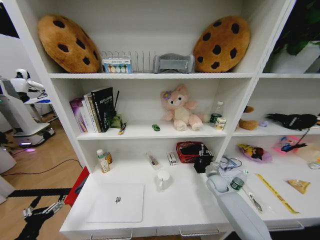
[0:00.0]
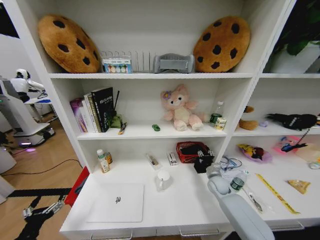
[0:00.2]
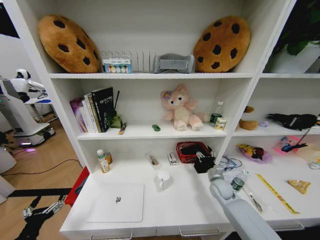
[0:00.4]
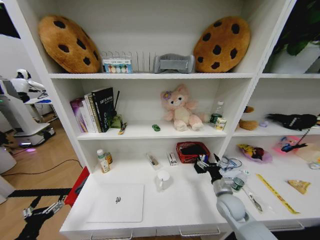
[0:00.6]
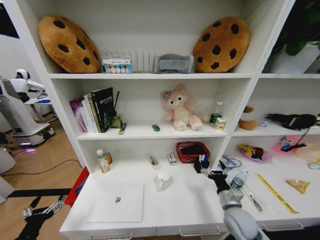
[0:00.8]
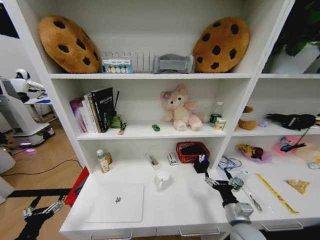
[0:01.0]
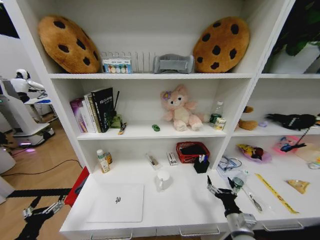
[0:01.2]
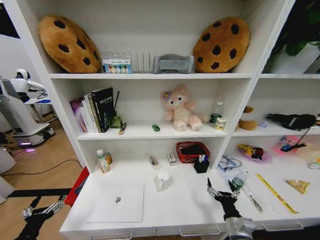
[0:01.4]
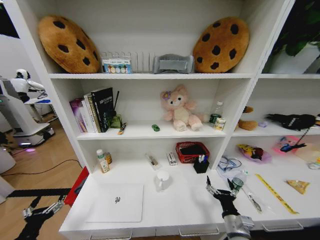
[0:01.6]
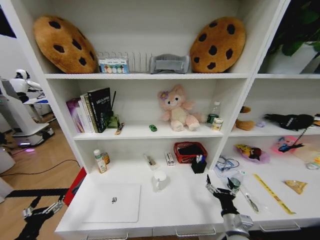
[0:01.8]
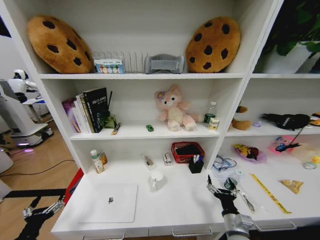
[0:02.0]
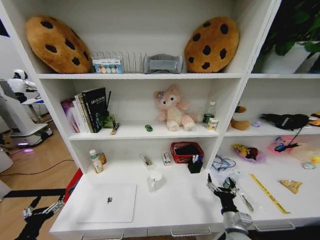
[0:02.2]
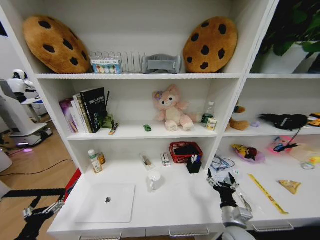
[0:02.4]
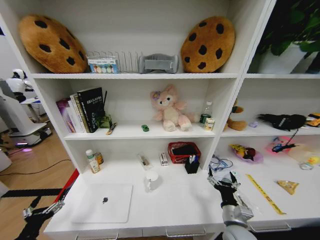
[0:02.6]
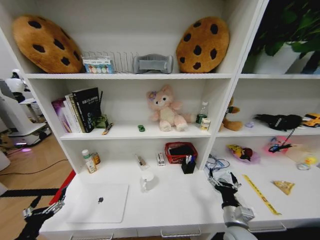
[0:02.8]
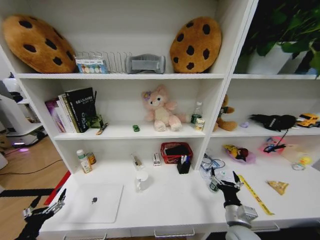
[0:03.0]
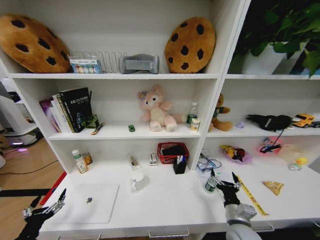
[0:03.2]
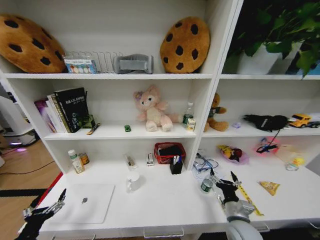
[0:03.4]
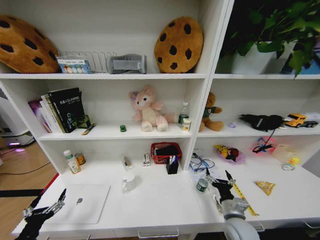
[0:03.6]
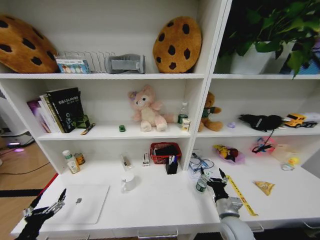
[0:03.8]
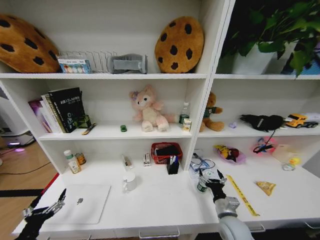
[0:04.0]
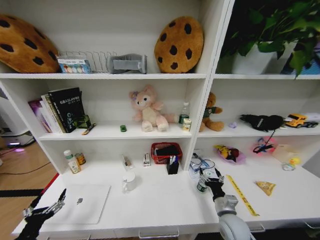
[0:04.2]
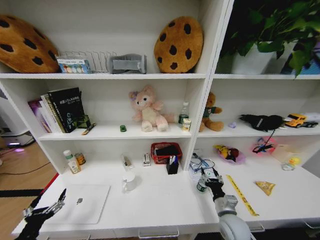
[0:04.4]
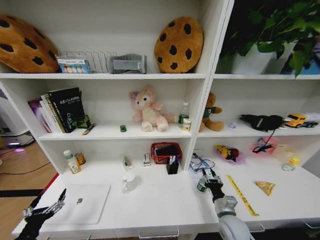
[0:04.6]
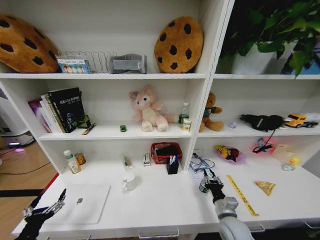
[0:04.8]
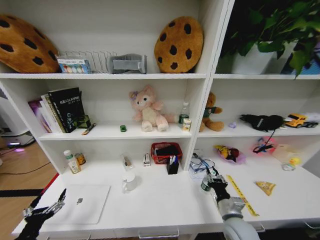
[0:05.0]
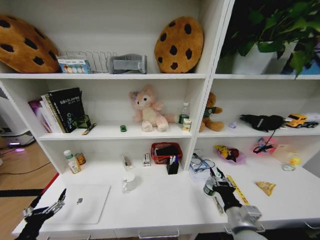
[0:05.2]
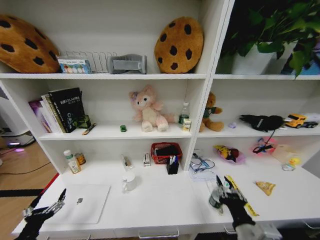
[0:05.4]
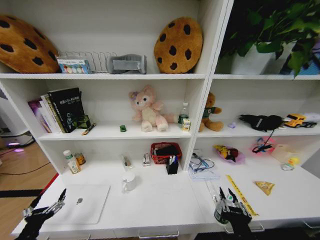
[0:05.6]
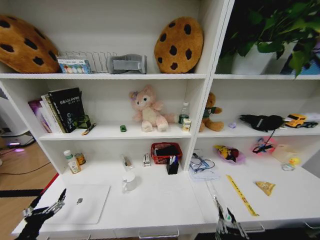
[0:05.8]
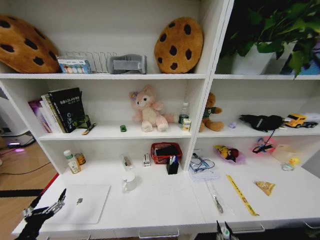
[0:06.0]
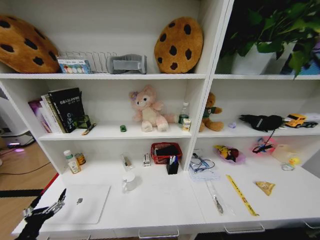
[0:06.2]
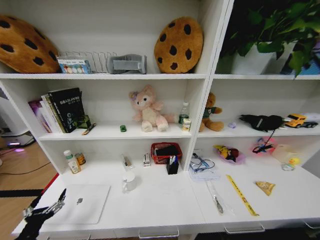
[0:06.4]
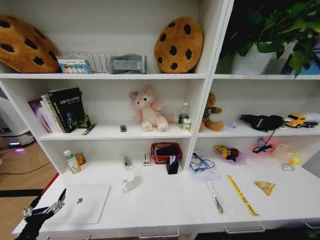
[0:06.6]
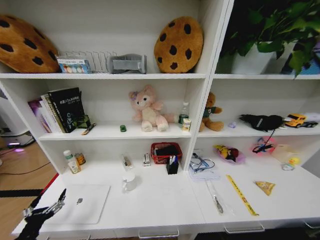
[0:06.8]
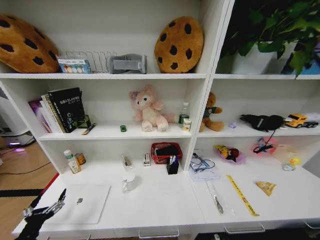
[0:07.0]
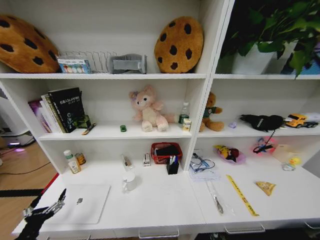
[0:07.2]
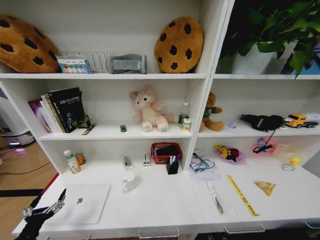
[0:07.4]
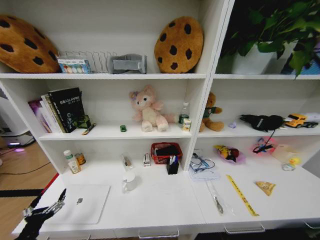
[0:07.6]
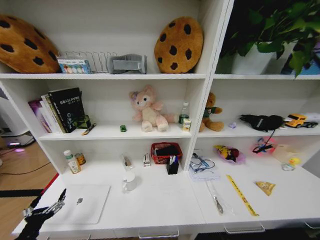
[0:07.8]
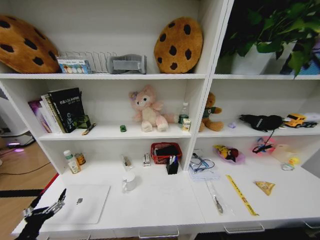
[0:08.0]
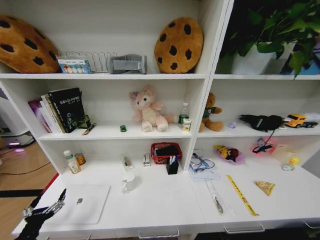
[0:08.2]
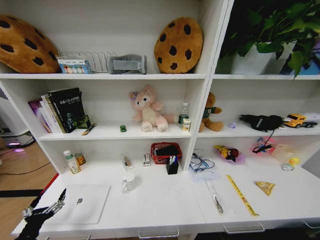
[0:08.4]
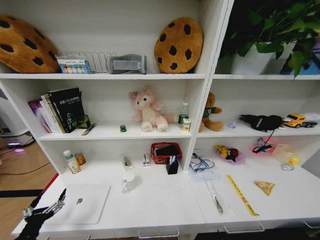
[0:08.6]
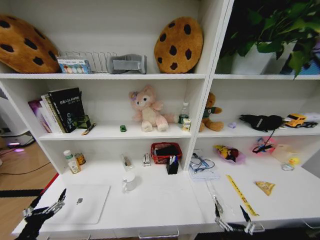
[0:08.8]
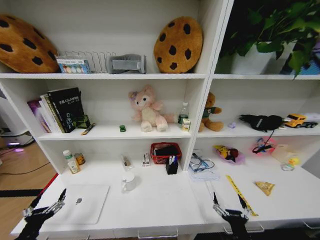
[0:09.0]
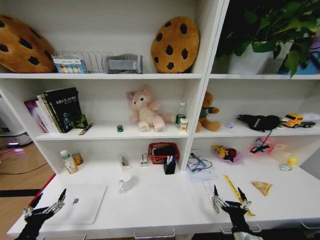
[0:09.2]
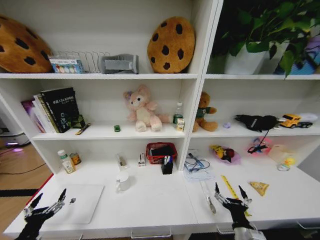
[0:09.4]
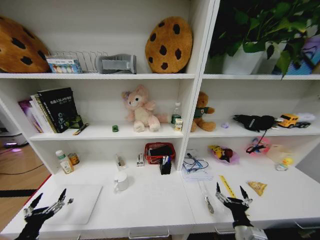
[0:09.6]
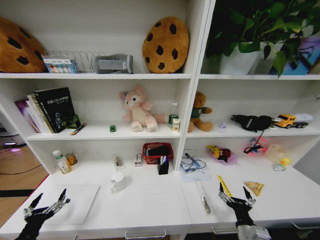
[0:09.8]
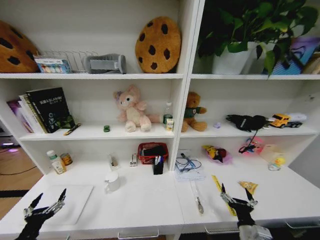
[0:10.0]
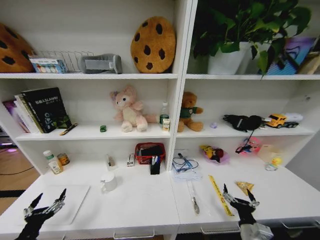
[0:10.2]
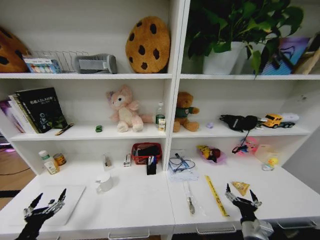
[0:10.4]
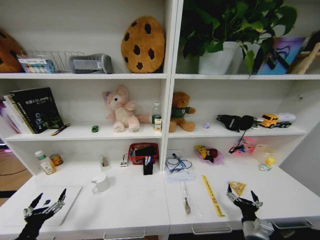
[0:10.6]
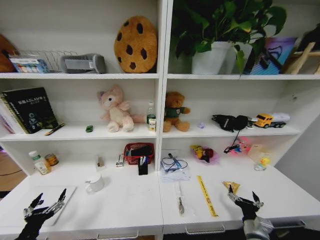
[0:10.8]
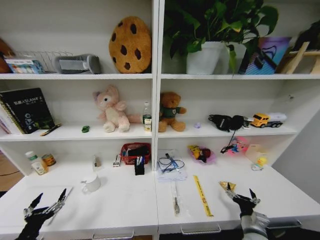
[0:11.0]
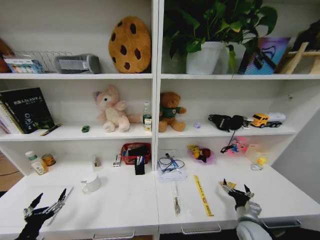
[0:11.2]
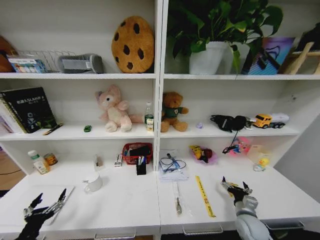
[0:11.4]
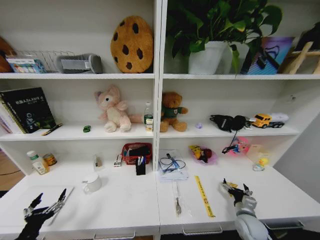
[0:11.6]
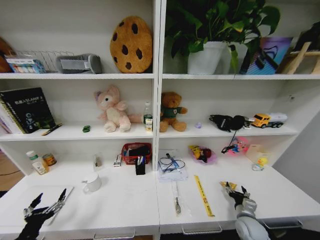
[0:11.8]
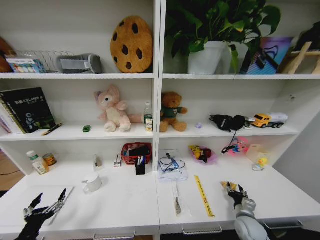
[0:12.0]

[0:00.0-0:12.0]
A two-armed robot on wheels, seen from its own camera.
Task of the whole recording: Organize the objects on the table.
0:00.0 to 0:01.6: The right gripper moves backward, roughly 25 cm, and opens up.
0:03.0 to 0:04.4: The right gripper changes place by about 5 cm.
0:04.4 to 0:06.0: The right gripper shifts some 20 cm backward, and closes up.
0:07.6 to 0:09.0: The right gripper moves upward, approximately 25 cm.
0:09.0 to 0:10.4: The right gripper travels forward and to the right by some 10 cm.
0:10.4 to 0:12.0: The right gripper heads forward and to the right, covering about 10 cm, and closes.

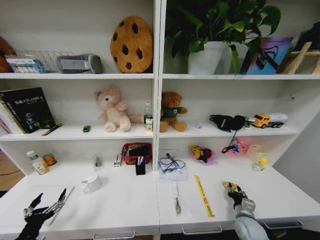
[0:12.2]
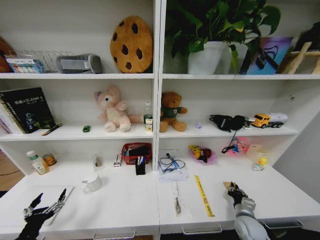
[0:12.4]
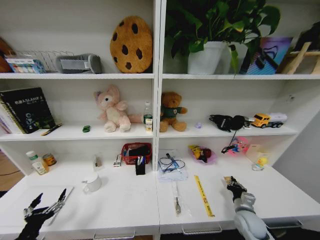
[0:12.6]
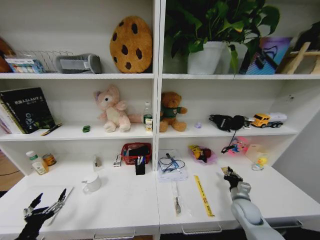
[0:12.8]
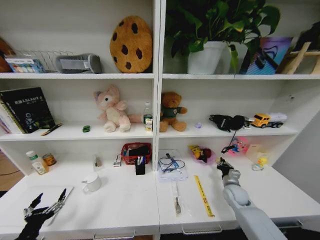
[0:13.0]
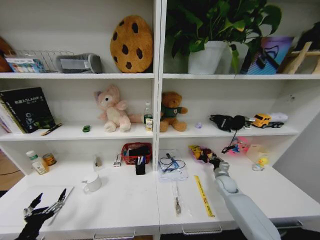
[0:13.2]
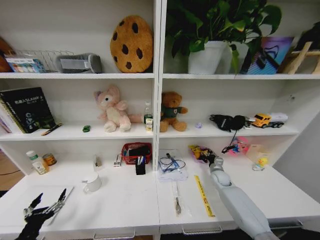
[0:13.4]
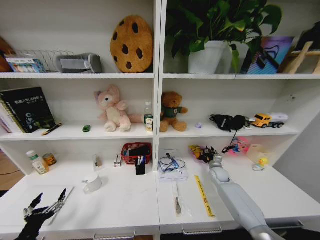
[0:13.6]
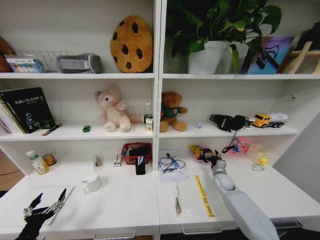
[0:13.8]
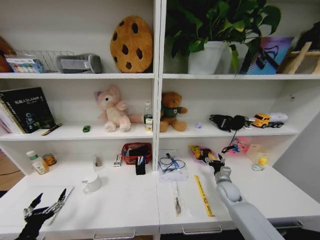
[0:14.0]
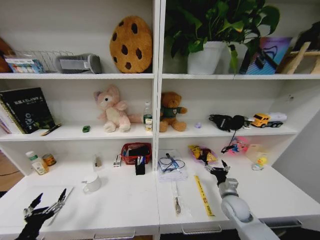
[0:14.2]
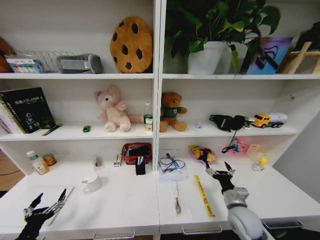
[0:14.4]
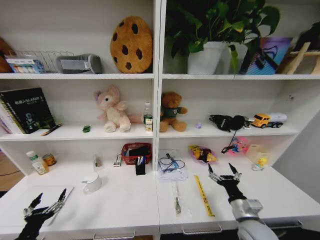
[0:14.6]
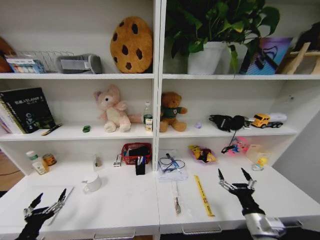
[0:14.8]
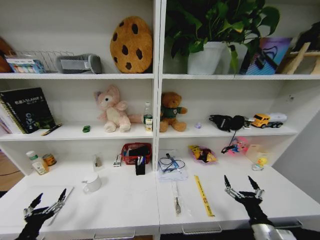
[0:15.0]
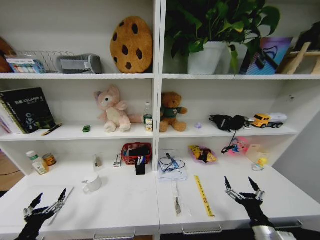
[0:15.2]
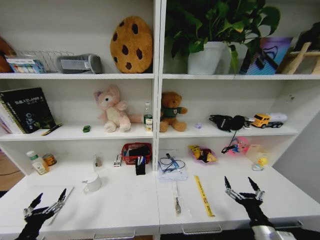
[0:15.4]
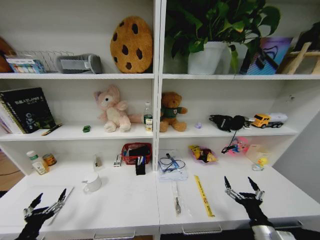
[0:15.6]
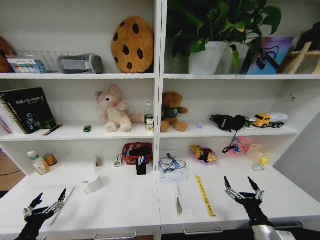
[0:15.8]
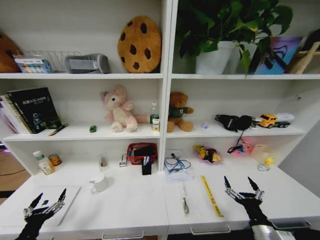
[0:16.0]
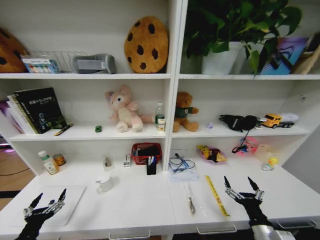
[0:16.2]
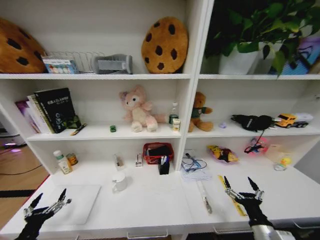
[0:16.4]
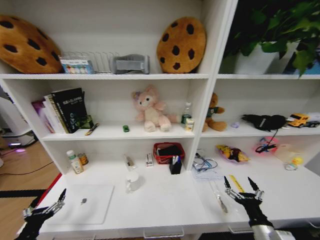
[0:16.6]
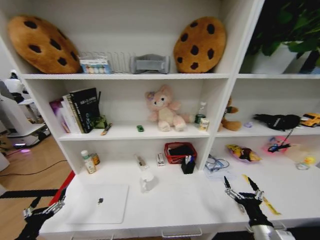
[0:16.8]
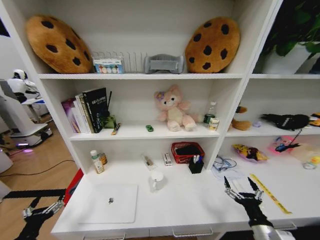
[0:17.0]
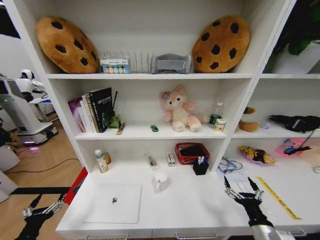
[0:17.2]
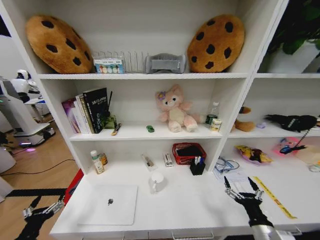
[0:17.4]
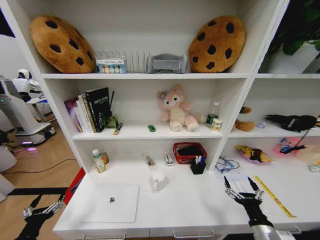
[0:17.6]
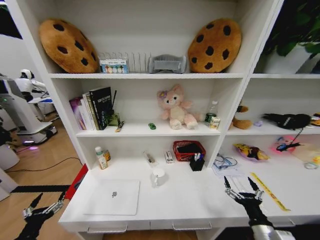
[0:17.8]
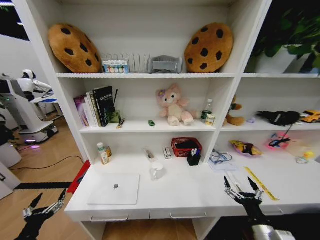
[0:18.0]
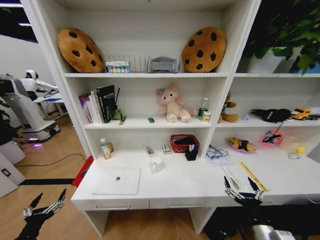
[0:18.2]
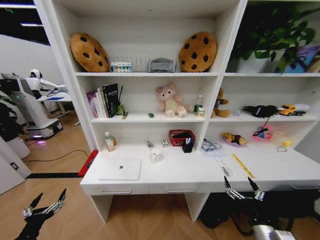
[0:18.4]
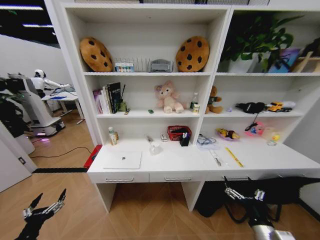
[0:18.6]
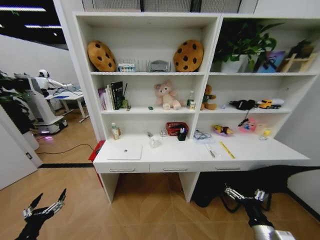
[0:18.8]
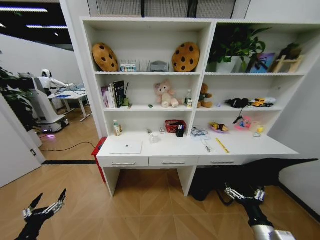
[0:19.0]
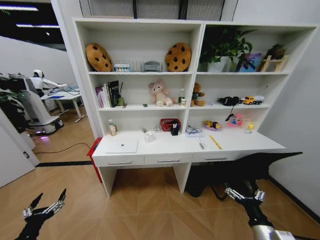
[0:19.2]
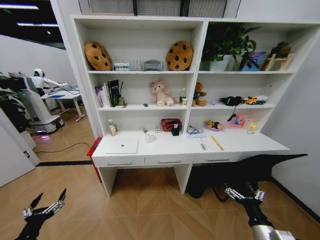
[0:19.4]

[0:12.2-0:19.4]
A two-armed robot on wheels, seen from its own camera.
Task of the whole recording: Organize the objects on the table.
0:12.2 to 0:13.6: The right gripper is displaced forward by some 25 cm.
0:13.6 to 0:15.0: The right gripper heads backward, covering roughly 35 cm, and opens up.
